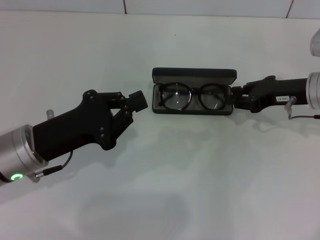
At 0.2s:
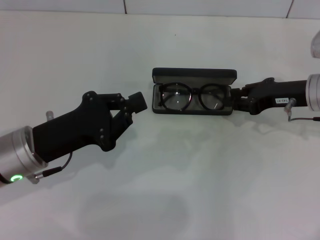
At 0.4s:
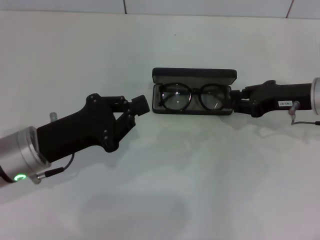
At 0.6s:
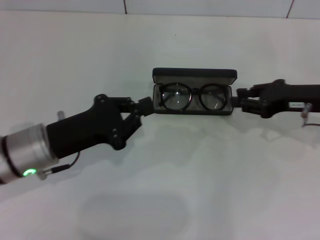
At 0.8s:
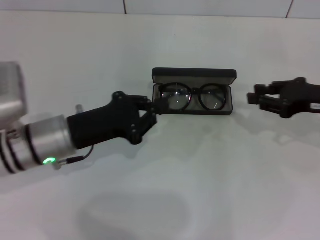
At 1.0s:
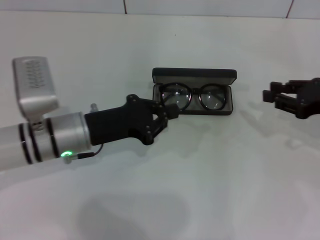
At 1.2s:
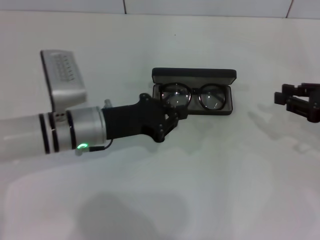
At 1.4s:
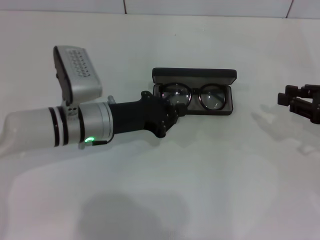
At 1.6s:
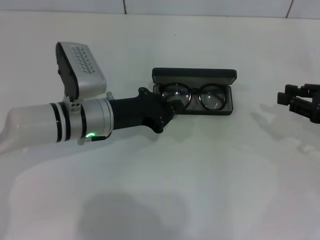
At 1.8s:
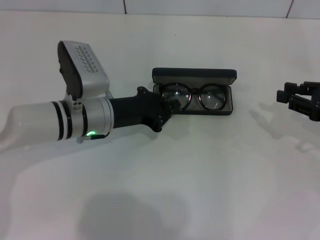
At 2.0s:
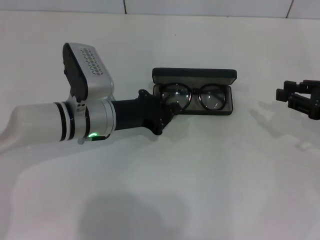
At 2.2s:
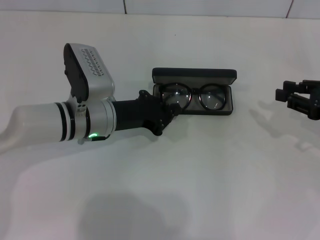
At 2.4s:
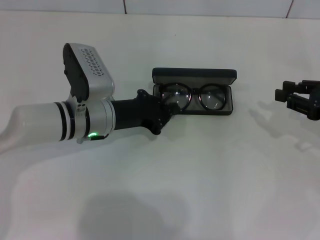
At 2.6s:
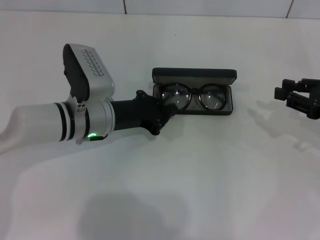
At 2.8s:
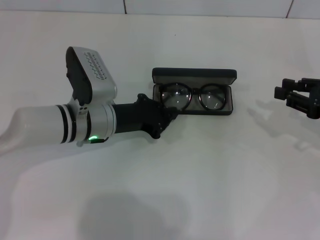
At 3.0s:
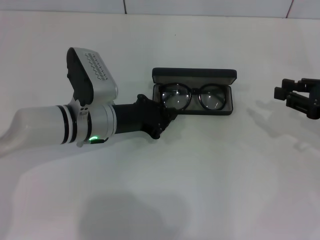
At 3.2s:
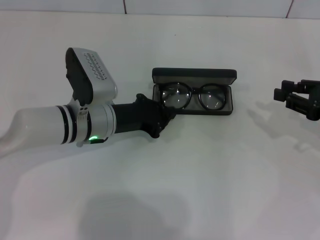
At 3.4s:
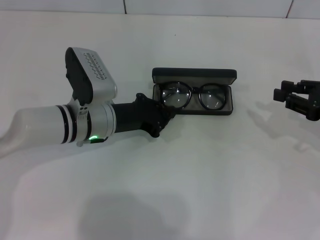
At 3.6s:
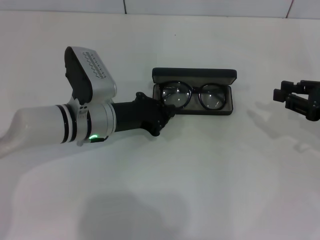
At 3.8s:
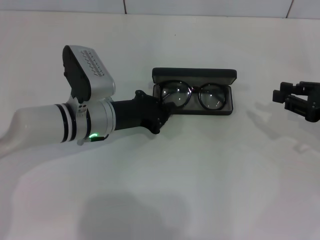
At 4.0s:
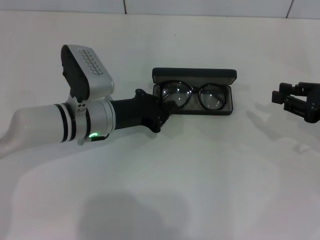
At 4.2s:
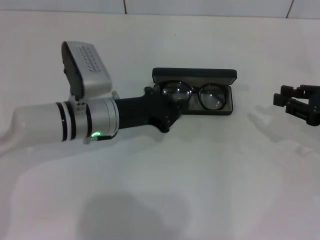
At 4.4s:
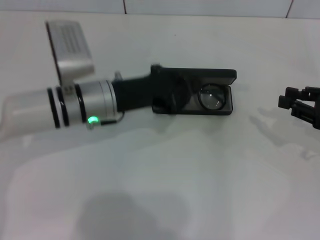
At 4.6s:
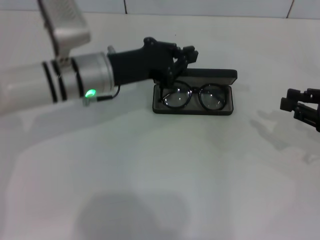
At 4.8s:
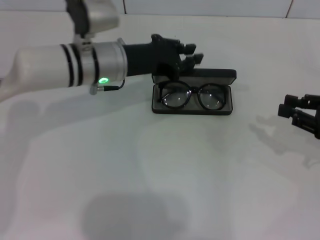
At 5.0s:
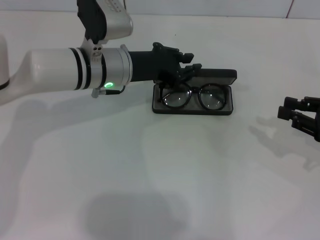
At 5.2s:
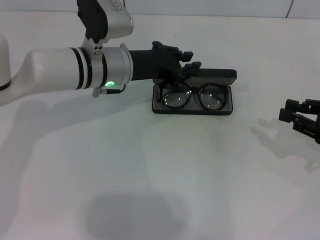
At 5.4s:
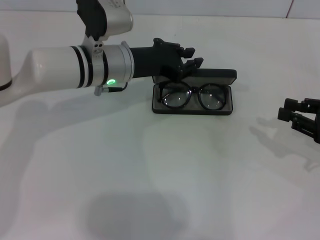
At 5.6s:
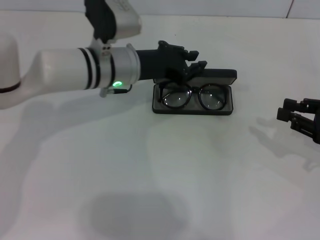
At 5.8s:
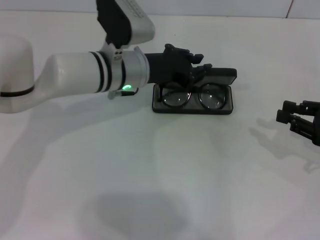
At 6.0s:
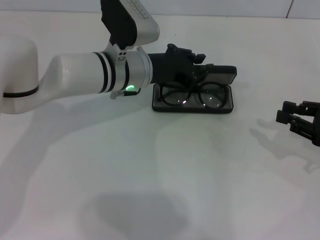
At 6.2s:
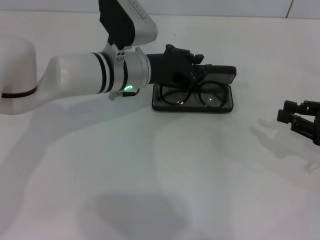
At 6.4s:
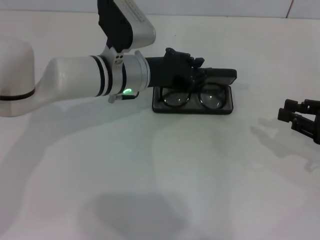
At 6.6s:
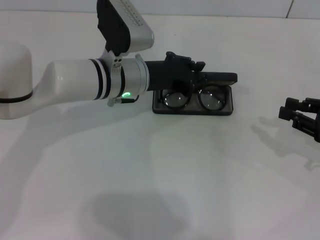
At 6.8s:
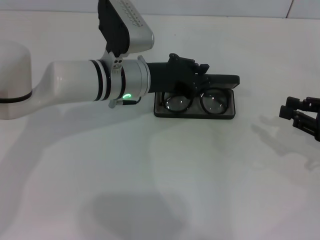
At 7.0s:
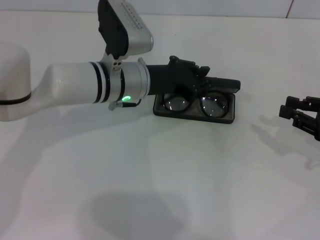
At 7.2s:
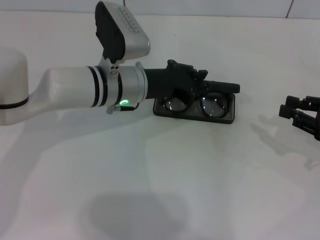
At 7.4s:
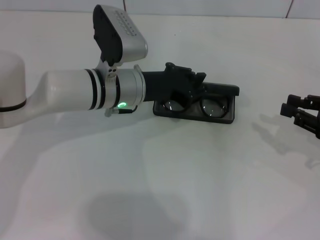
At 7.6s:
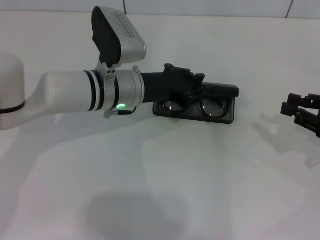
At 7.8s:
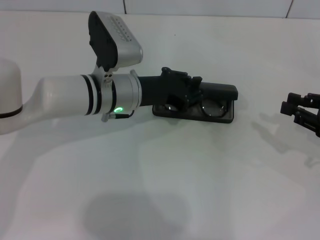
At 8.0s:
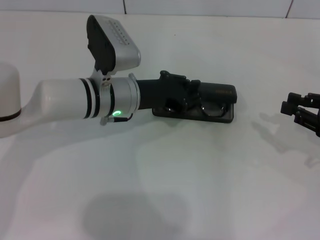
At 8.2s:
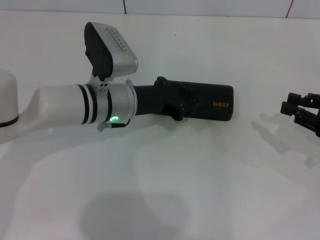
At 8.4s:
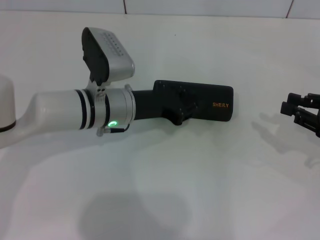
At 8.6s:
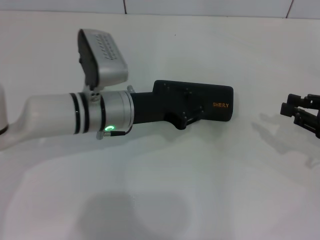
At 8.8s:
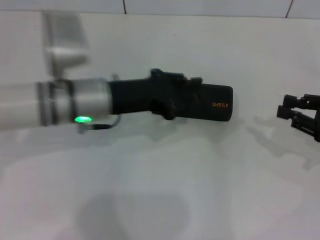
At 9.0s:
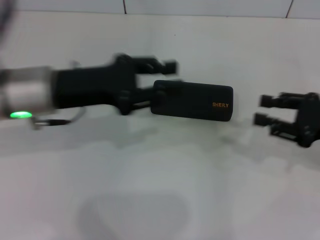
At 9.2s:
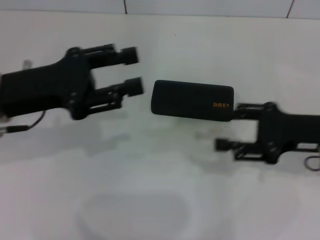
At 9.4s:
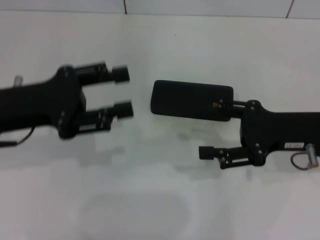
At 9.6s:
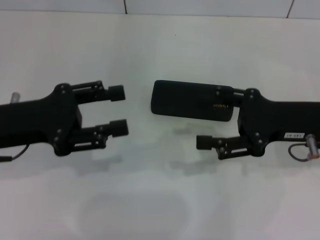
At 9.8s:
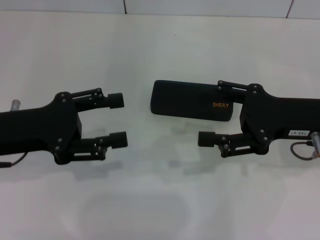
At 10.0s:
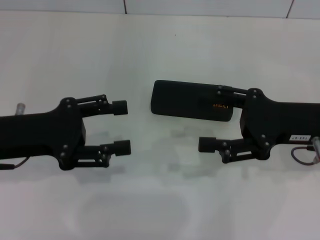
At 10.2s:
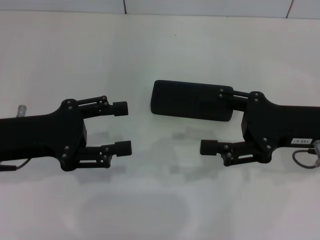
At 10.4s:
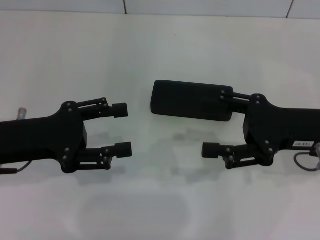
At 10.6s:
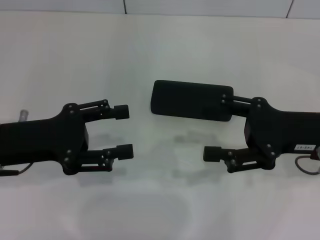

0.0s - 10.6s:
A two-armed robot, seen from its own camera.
Step, 0.6s - 8.2s: Close the glasses case with your left hand.
0.0s - 1.6s: The left gripper travels forward and to the right by some 10 cm. The right gripper moves to the right and backward, about 10 cm.
1.6s - 3.0s: There are only small adjustments of the grippers.
3.0s - 4.6s: The left gripper is displaced upward by roughly 5 cm.
4.6s - 6.0s: The left gripper moves to the right, some 5 cm.
6.0s - 7.6s: The grippers make only small movements.
7.6s - 9.0s: The left gripper goes some 15 cm to the left, upward and backward.
9.0s - 10.6s: The left gripper is displaced to the left and backward by about 10 cm, and opens up; the right gripper is displaced to the left by some 5 cm, and opens its fingers.
